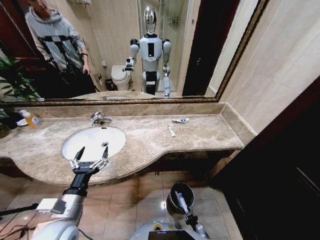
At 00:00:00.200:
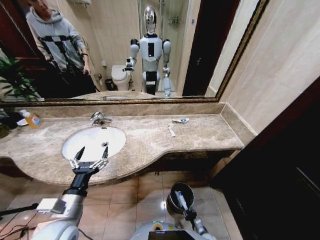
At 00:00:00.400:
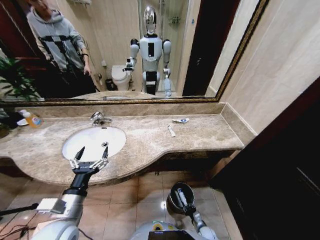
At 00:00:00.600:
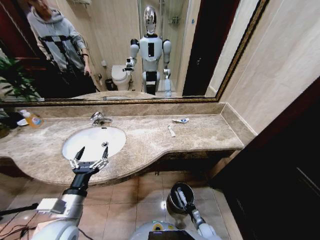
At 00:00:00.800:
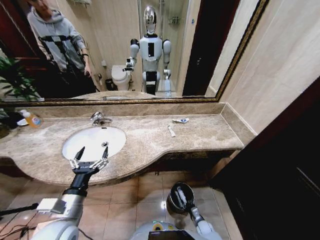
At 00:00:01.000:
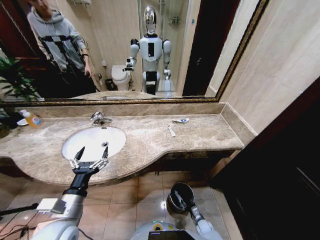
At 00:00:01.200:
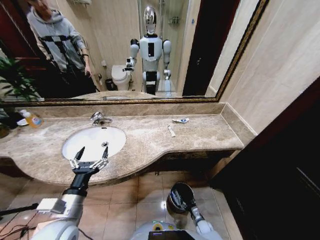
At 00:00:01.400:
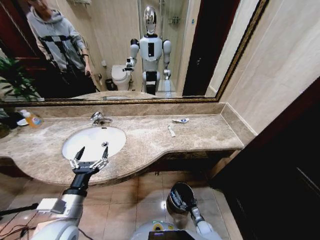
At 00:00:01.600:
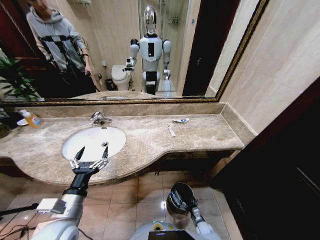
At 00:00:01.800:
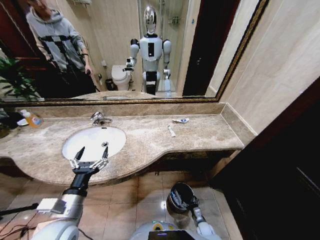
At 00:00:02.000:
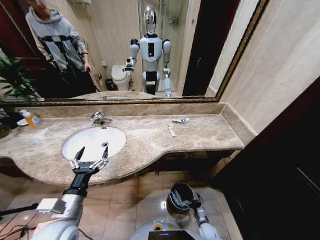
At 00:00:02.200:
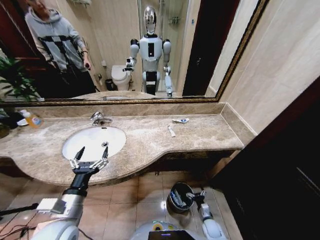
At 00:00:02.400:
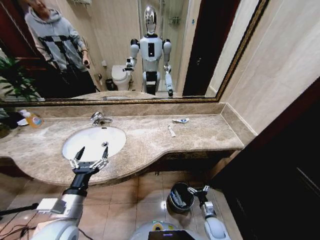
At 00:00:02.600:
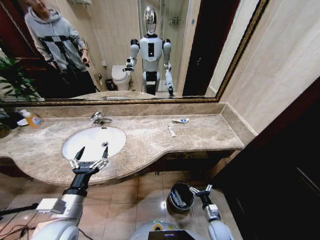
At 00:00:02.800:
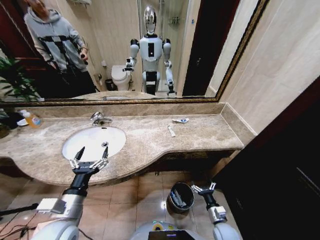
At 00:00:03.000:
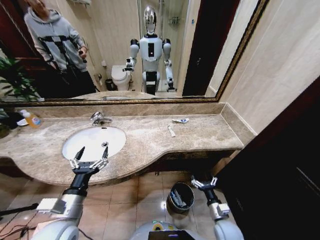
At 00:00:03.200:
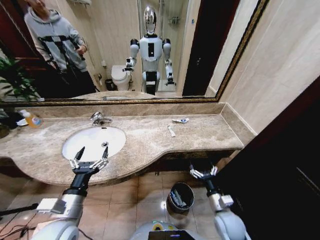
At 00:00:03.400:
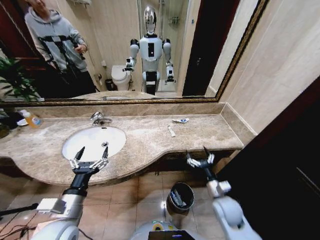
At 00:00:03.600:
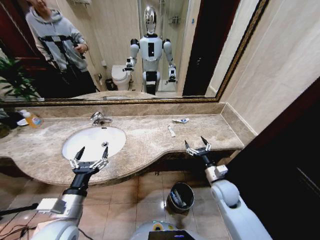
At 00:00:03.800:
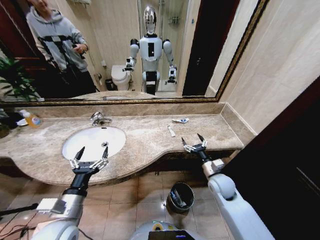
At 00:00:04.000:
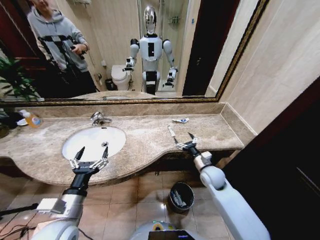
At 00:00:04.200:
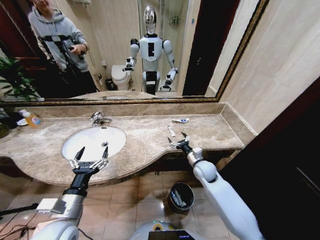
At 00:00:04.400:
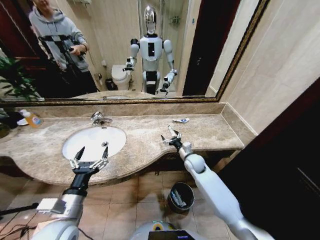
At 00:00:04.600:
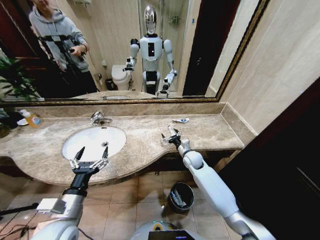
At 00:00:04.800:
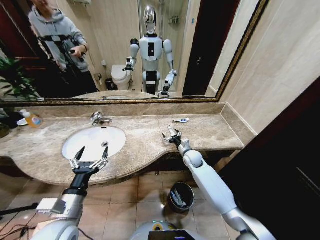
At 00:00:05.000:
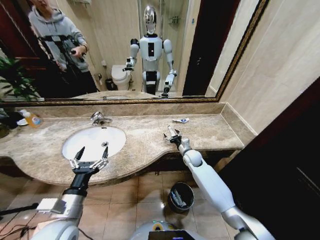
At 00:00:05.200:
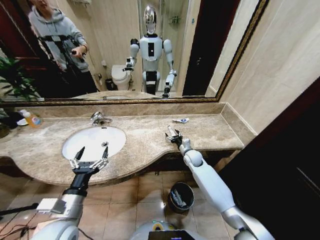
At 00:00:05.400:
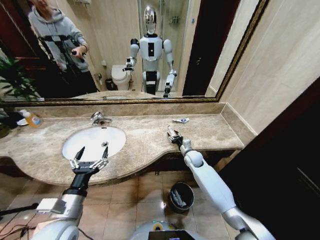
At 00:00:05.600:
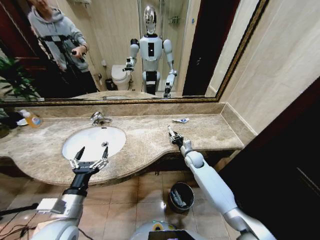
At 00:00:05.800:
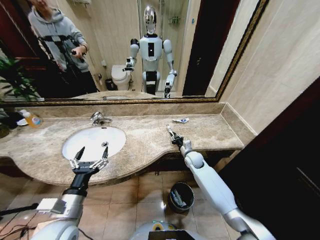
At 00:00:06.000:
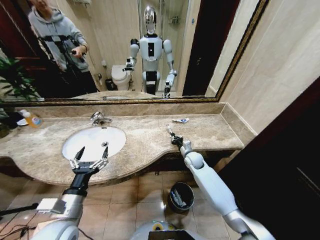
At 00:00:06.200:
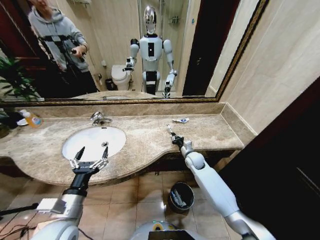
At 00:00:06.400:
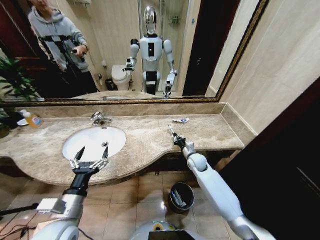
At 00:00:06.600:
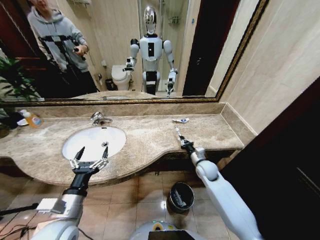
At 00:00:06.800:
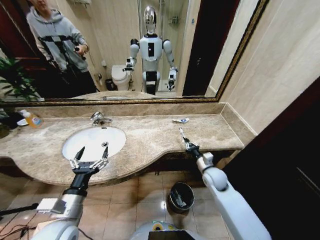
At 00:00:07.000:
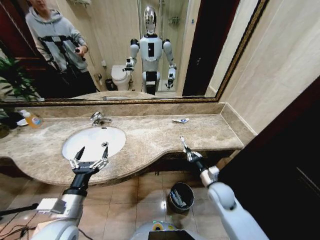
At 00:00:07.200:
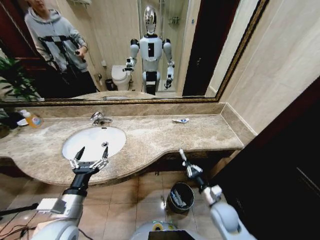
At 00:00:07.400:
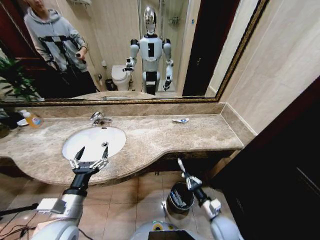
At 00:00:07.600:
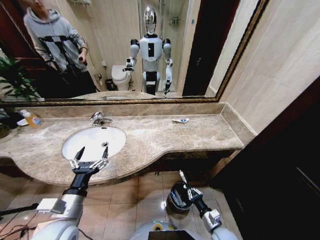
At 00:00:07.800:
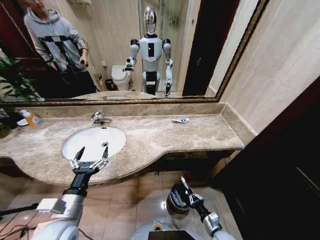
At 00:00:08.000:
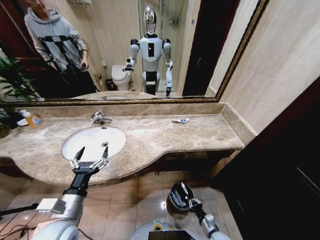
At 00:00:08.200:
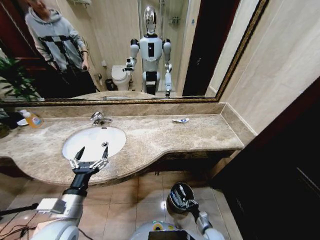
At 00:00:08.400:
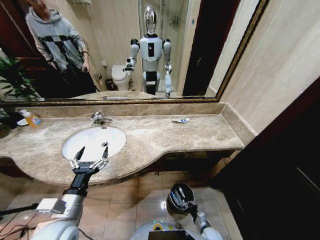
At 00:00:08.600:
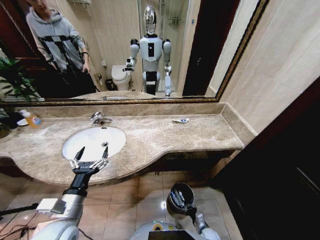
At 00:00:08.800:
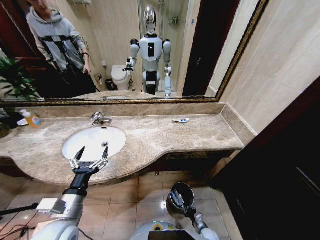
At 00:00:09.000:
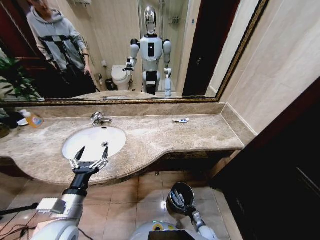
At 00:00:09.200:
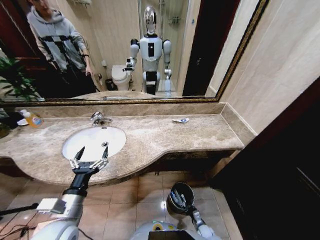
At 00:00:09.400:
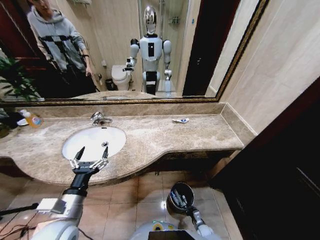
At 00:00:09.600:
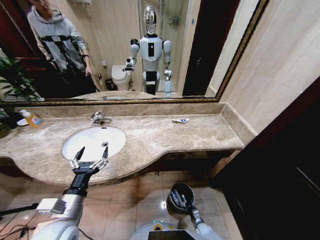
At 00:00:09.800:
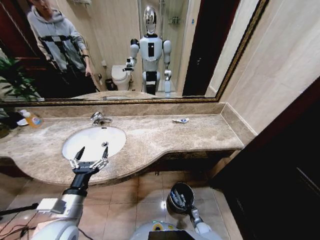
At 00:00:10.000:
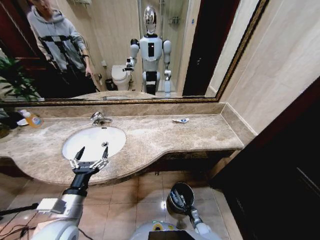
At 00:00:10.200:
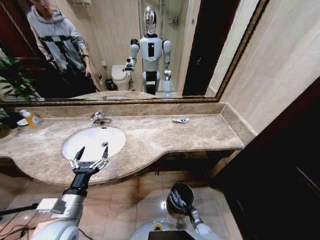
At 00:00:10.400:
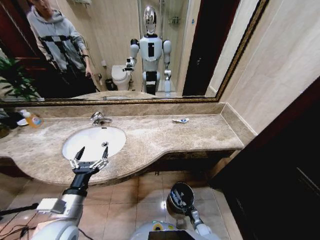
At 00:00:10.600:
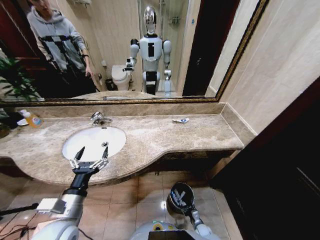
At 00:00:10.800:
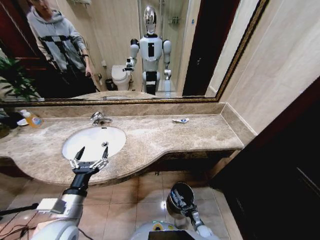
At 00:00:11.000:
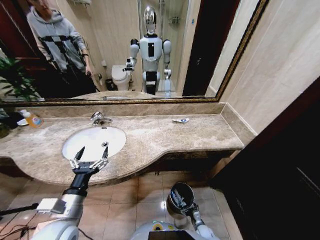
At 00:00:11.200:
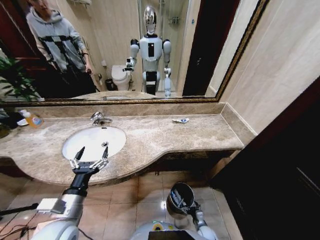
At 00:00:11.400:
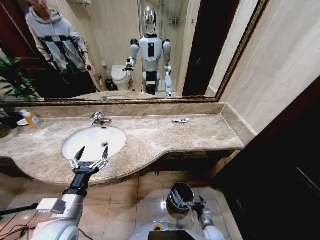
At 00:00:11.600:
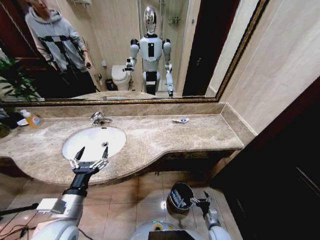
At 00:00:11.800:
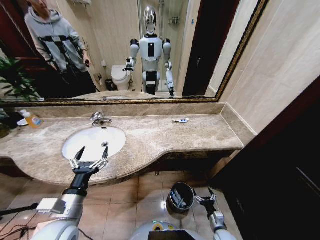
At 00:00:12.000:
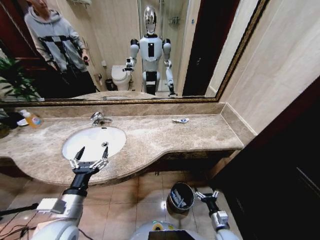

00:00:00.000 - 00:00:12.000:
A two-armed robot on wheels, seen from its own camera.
Task of the whole recording: Pick up the trash from the sink and place it in the trash bin.
00:00:00.000 - 00:00:01.600: The right gripper heads forward, covering some 10 cm, and opens.
00:00:01.600 - 00:00:03.000: The right gripper shifts approximately 25 cm upward.
00:00:03.000 - 00:00:04.400: The right gripper goes about 30 cm forward and upward.
00:00:04.400 - 00:00:06.000: The right gripper closes up.
00:00:06.000 - 00:00:07.600: The right gripper heads backward, covering roughly 30 cm.
00:00:07.600 - 00:00:09.000: The right gripper goes approximately 20 cm downward.
00:00:09.000 - 00:00:10.400: The right gripper opens its fingers.
00:00:10.400 - 00:00:12.000: The right gripper is displaced upward by roughly 20 cm, and opens up.

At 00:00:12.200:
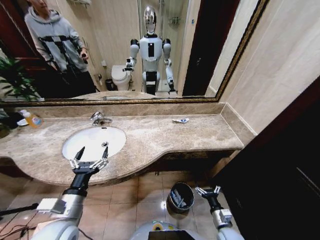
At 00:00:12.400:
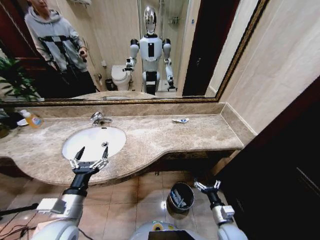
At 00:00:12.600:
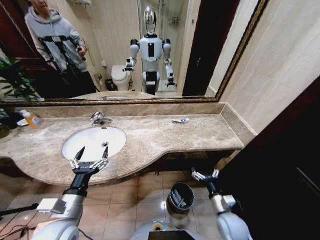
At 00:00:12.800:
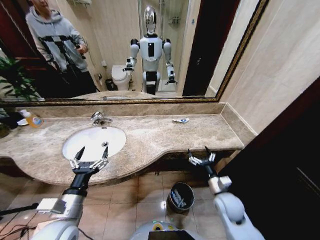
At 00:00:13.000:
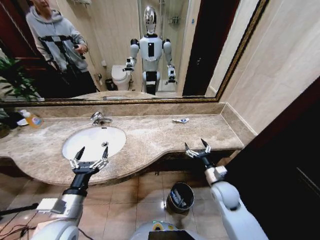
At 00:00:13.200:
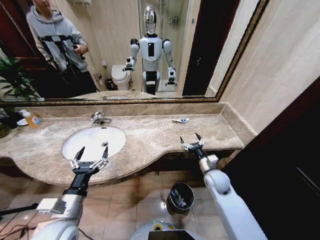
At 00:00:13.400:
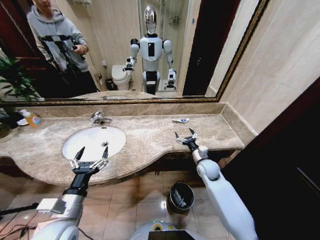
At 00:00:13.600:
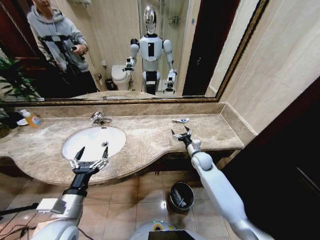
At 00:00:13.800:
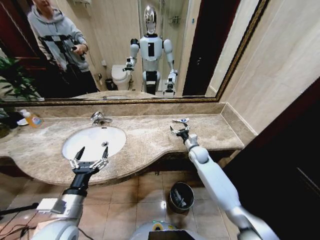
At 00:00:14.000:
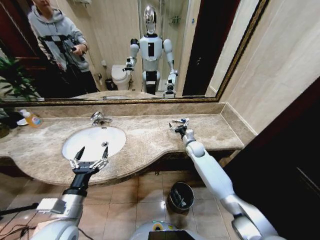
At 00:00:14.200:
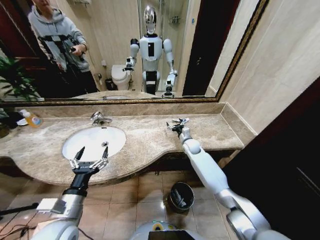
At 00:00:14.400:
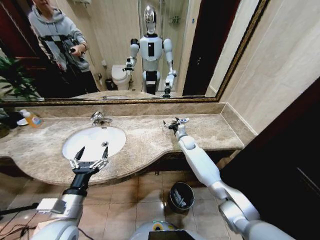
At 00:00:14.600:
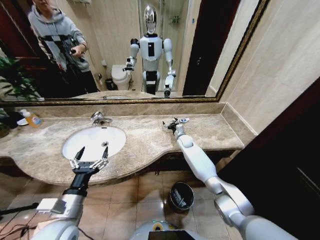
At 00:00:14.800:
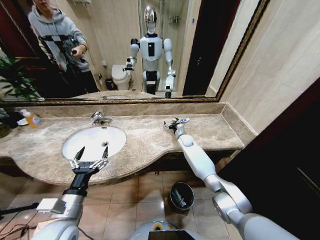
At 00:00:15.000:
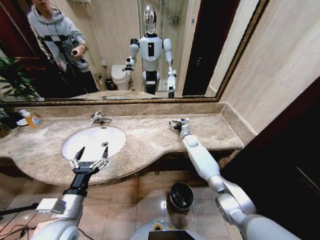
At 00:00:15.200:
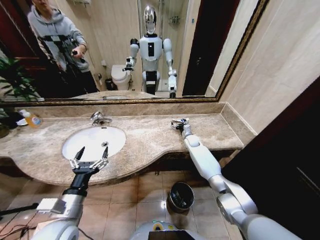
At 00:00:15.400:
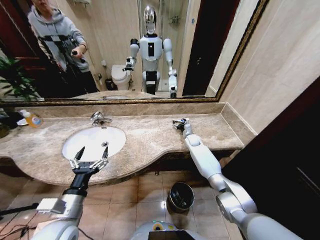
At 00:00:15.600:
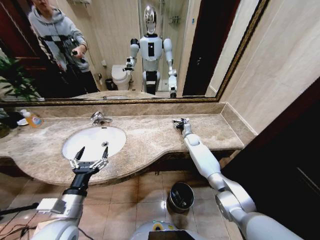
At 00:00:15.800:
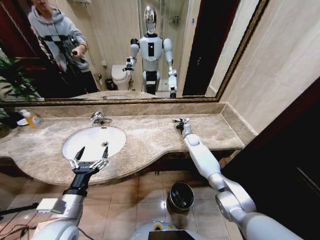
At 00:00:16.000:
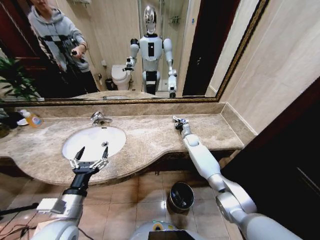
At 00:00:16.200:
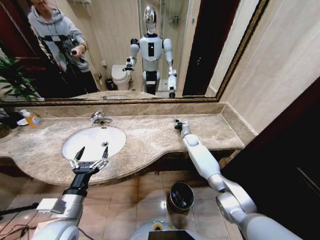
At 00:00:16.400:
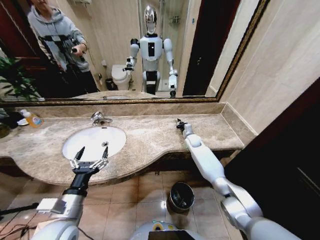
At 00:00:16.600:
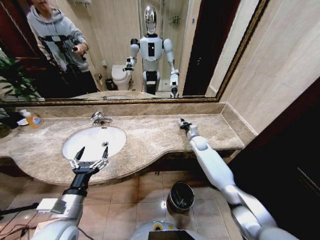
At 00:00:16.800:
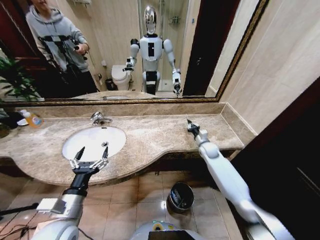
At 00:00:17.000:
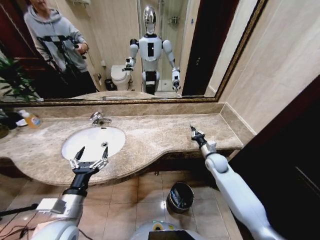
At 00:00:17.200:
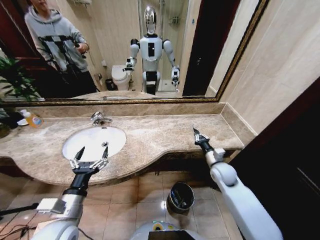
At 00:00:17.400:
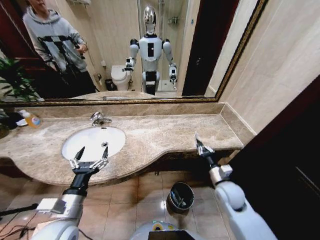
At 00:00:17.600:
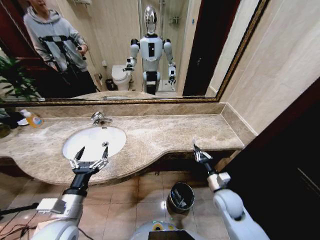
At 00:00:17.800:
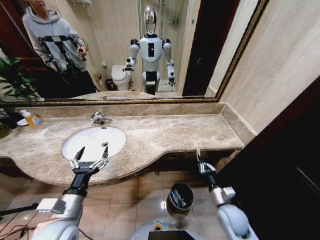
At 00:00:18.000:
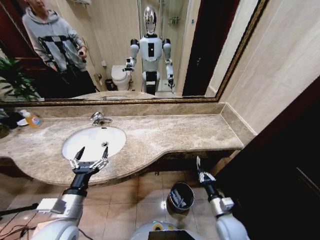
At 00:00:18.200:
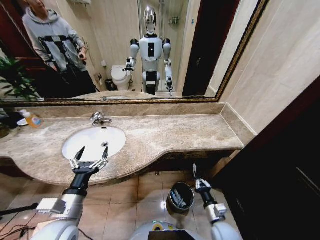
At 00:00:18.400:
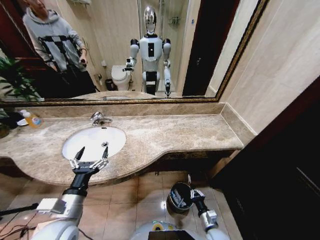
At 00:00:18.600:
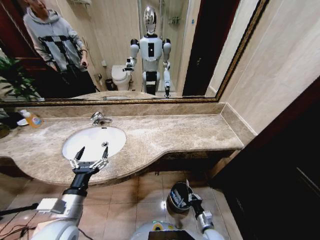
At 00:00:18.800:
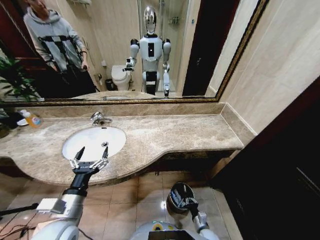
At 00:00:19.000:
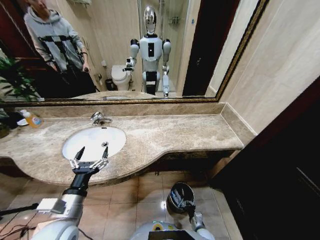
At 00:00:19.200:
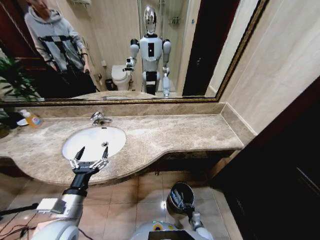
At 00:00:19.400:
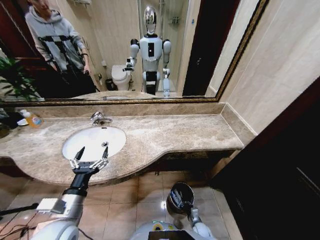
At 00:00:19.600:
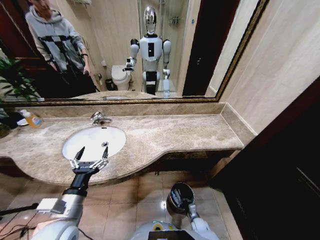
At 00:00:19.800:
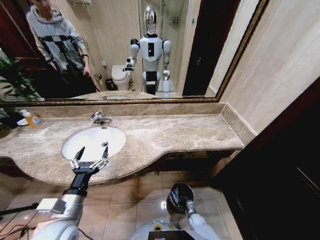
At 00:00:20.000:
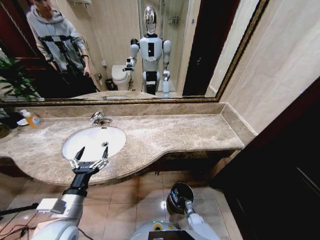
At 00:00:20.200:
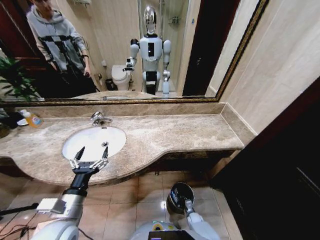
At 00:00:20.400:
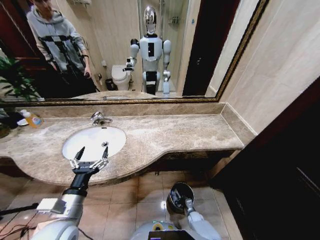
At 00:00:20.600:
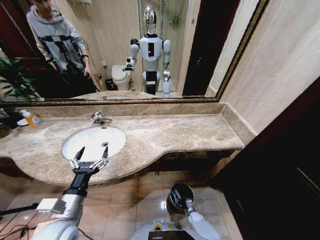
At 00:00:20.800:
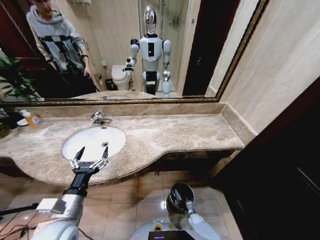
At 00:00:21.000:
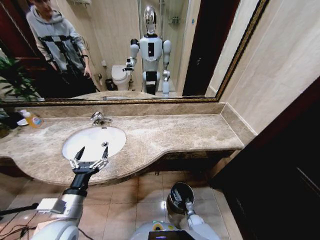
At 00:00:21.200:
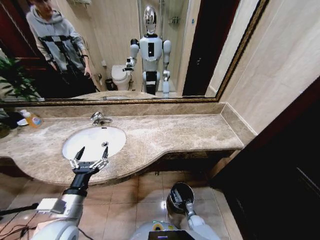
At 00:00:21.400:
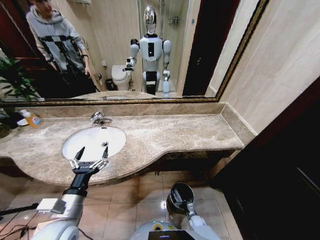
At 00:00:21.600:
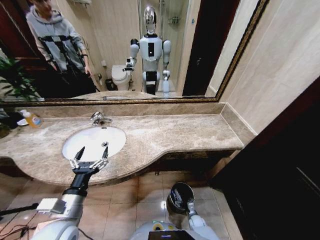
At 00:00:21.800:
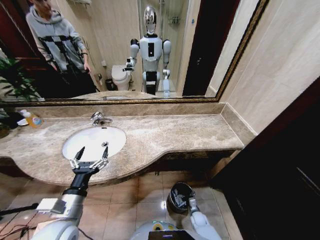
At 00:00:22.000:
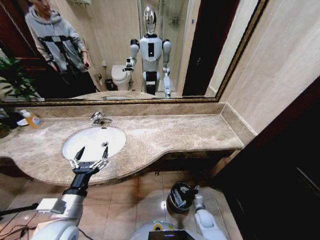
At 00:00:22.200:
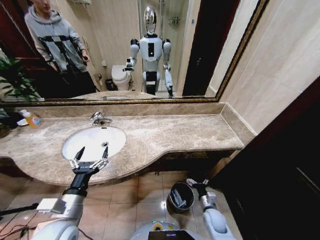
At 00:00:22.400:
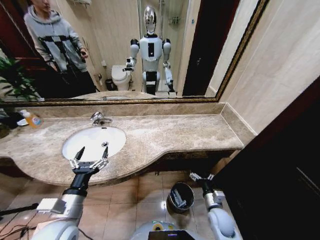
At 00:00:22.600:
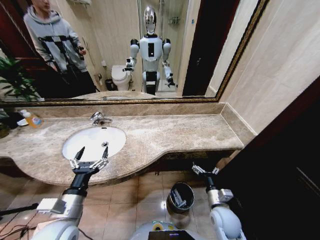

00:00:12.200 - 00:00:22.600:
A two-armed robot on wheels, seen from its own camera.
Task of the whole recording: Pick up the trash from the sink and place it in the trash bin.
00:00:12.200 - 00:00:13.600: The right gripper shifts about 35 cm forward and upward.
00:00:13.600 - 00:00:15.200: The right gripper shifts about 15 cm forward.
00:00:15.200 - 00:00:16.600: The right gripper moves approximately 5 cm, and closes its fingers.
00:00:16.600 - 00:00:18.200: The right gripper travels backward by about 40 cm.
00:00:18.200 - 00:00:19.600: The right gripper shifts roughly 25 cm downward.
00:00:19.600 - 00:00:21.200: The right gripper opens up.
00:00:21.200 - 00:00:22.600: The right gripper travels upward by some 35 cm.
